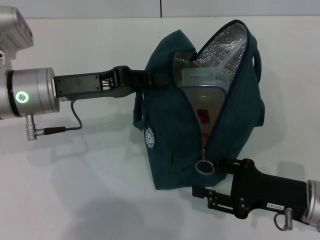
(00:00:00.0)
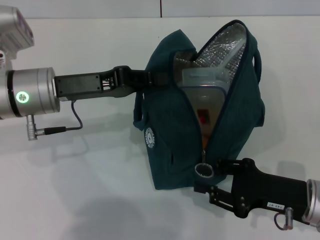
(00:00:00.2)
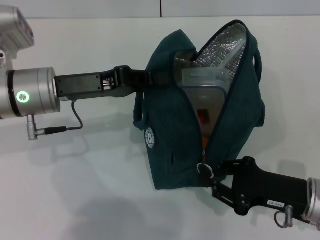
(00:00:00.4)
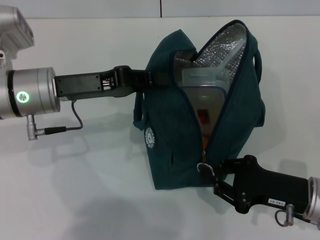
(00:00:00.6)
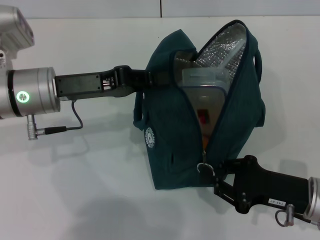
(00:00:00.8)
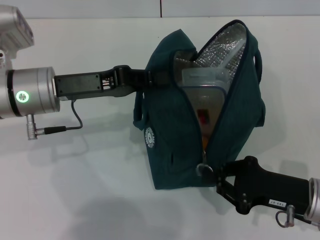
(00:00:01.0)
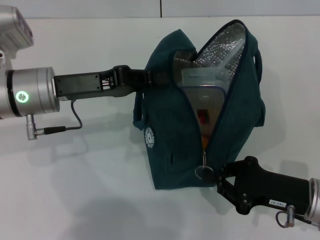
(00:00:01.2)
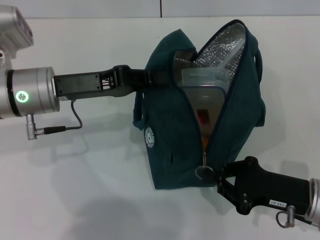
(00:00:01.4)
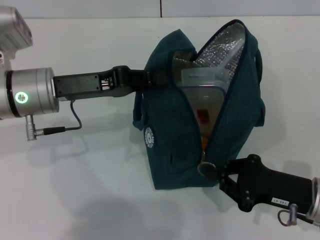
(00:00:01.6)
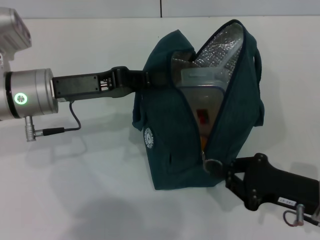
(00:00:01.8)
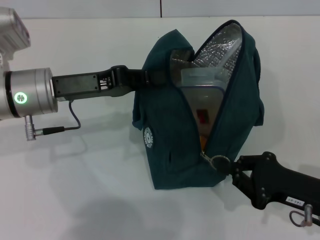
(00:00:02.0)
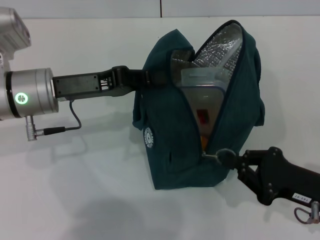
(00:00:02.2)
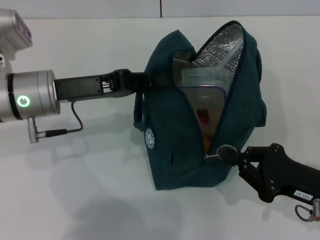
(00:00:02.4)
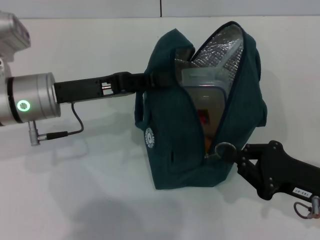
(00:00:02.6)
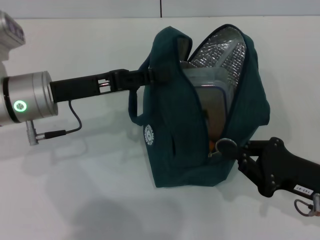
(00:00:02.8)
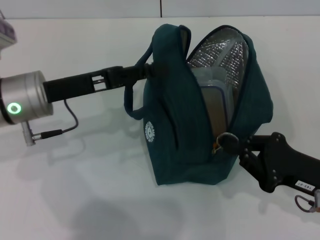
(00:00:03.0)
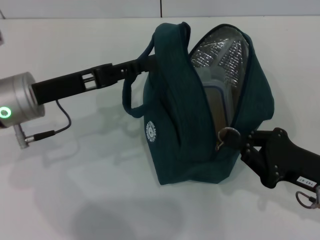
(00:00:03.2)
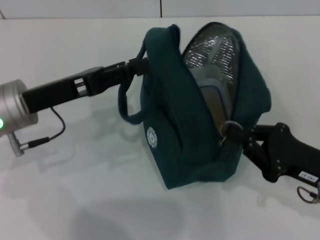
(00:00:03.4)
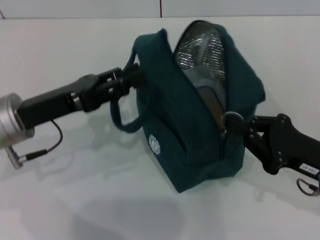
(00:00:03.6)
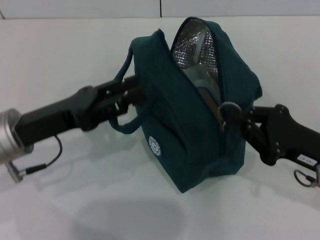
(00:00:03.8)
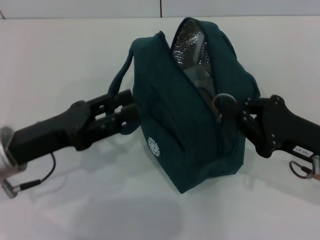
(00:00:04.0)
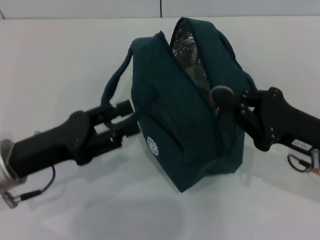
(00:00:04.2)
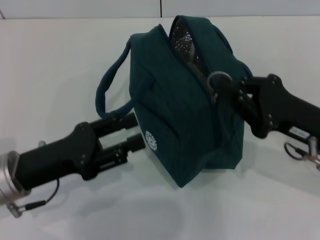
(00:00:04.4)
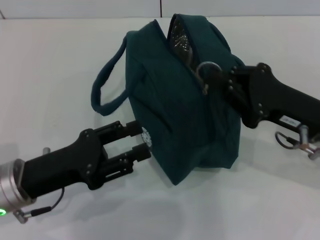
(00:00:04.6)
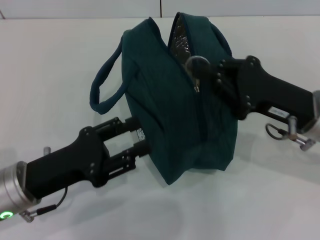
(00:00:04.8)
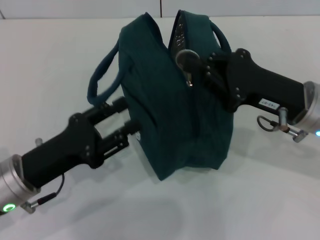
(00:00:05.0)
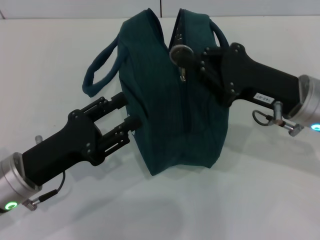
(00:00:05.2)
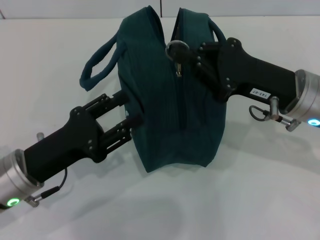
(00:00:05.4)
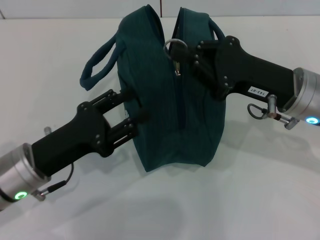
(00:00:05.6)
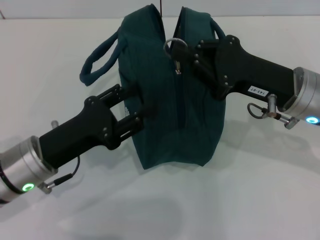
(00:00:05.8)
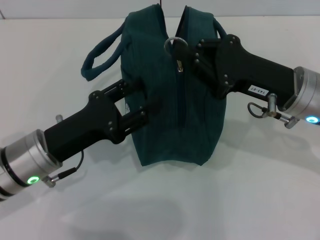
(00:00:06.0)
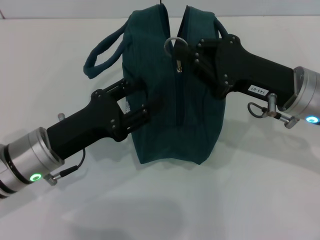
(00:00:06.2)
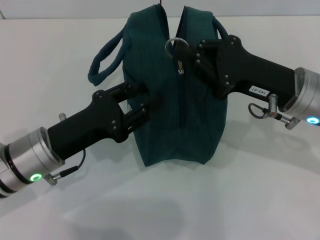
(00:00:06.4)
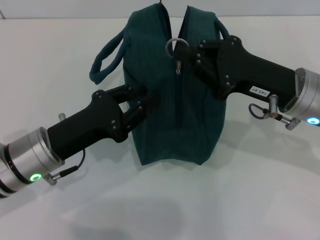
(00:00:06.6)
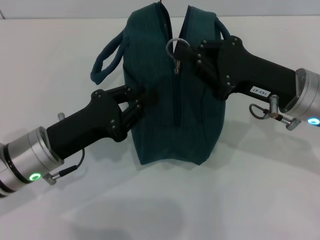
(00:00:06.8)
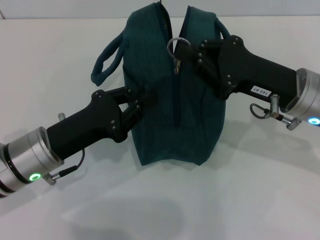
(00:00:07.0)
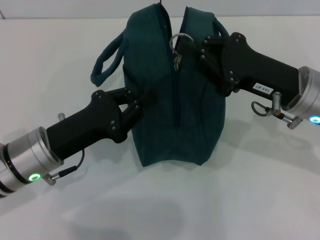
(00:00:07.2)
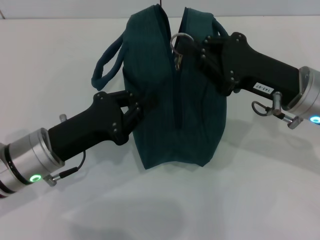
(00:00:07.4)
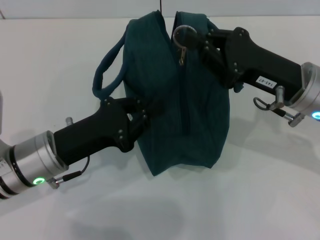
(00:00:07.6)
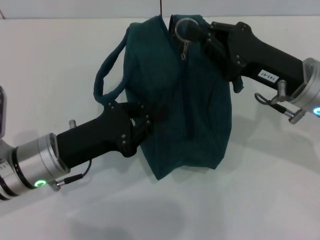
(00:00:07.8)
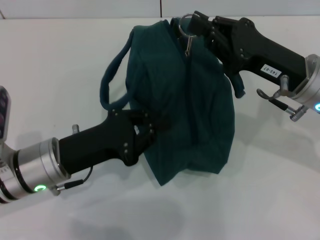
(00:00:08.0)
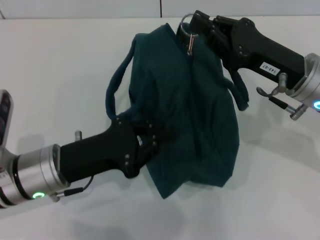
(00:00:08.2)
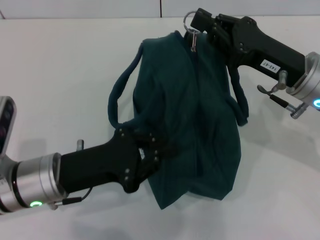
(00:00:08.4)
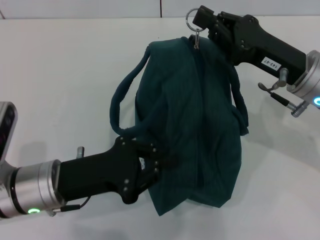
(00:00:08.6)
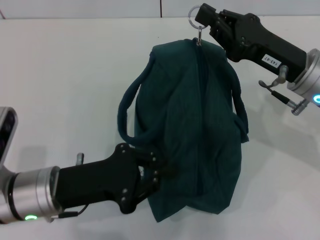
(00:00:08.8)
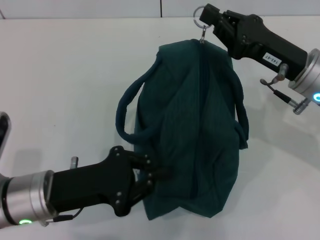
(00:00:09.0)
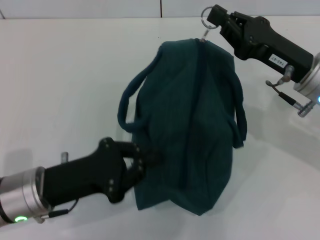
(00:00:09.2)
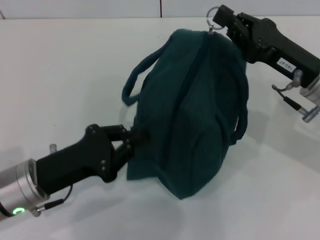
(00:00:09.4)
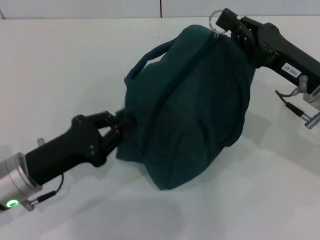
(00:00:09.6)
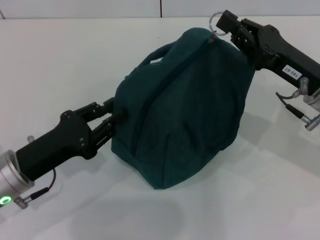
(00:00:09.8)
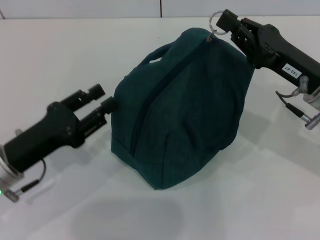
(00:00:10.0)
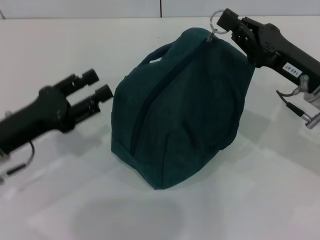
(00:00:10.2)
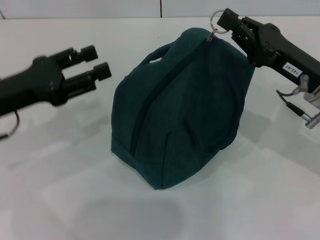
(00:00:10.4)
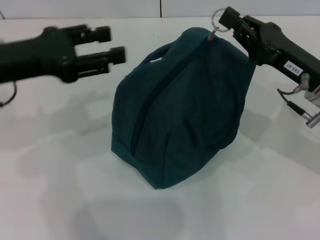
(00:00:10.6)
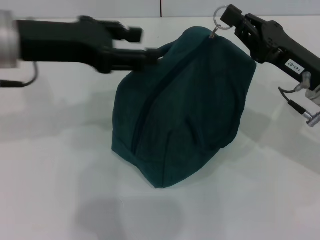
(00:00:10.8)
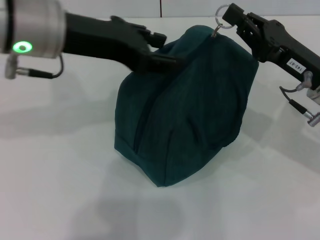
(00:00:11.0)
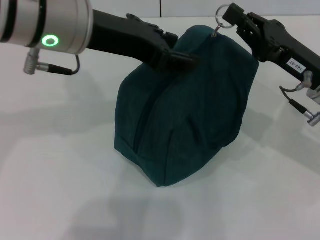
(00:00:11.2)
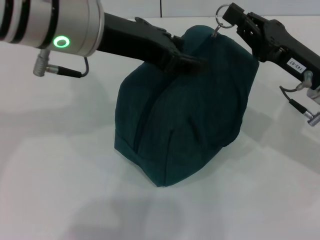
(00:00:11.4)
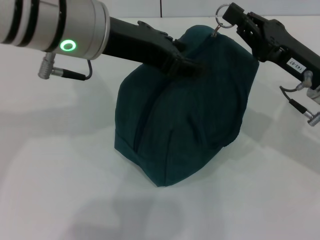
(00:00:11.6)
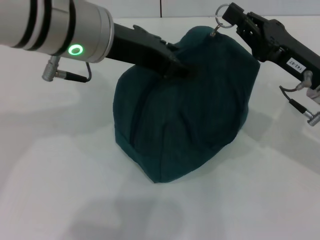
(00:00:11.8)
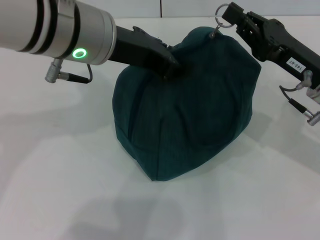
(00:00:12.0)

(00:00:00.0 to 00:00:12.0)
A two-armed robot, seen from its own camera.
Step, 00:00:00.0 - 00:00:03.4: Hold the lunch bag with your left hand.
00:00:00.0 - 00:00:01.6: The right gripper closes.
00:00:01.6 - 00:00:03.0: The left gripper opens up.
00:00:03.0 - 00:00:04.4: The left gripper is displaced backward and downward by approximately 10 cm. Meanwhile the right gripper ends up approximately 5 cm from where it was.
00:00:04.4 - 00:00:06.0: The right gripper ends up approximately 5 cm from where it was.
00:00:06.0 - 00:00:07.6: The left gripper closes.
00:00:09.0 - 00:00:10.4: The left gripper moves upward, to the left and forward, roughly 10 cm, and opens its fingers.
00:00:10.4 - 00:00:12.0: The left gripper is displaced to the right and upward by roughly 20 cm.

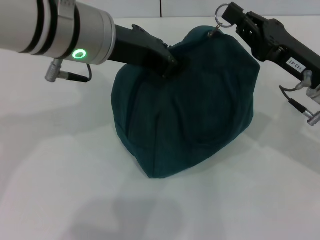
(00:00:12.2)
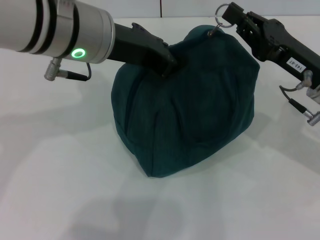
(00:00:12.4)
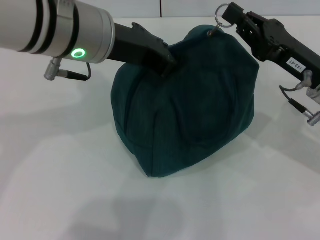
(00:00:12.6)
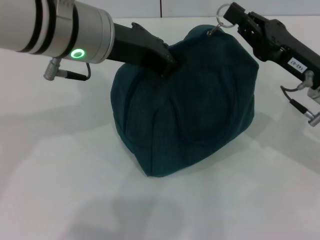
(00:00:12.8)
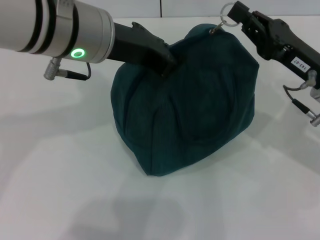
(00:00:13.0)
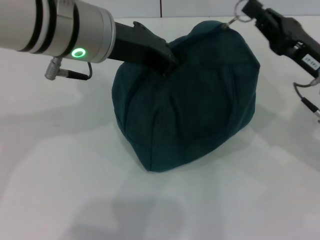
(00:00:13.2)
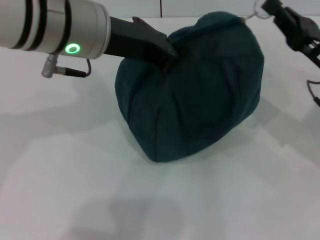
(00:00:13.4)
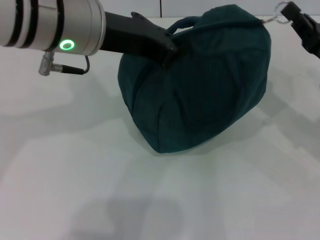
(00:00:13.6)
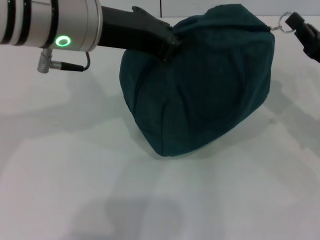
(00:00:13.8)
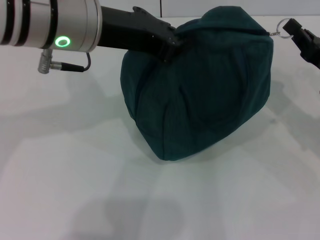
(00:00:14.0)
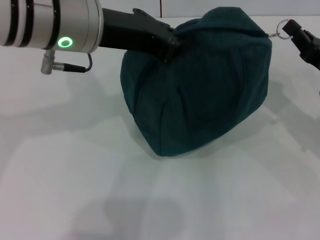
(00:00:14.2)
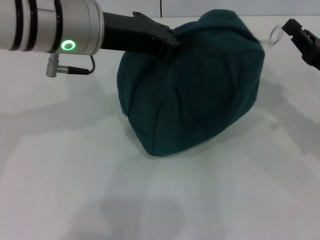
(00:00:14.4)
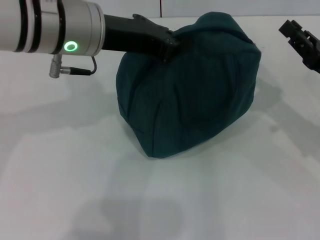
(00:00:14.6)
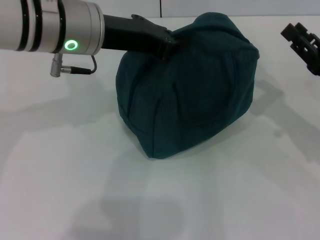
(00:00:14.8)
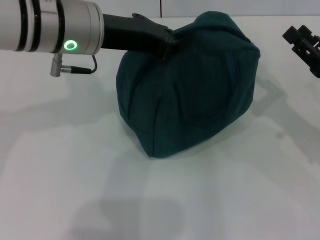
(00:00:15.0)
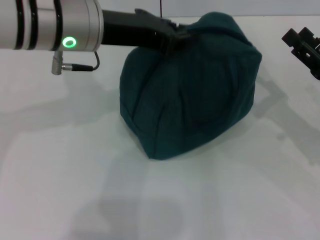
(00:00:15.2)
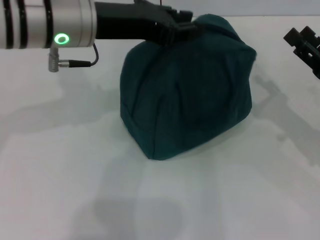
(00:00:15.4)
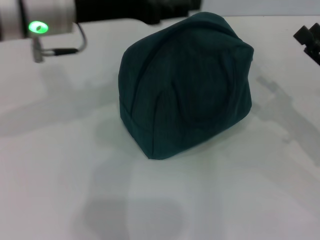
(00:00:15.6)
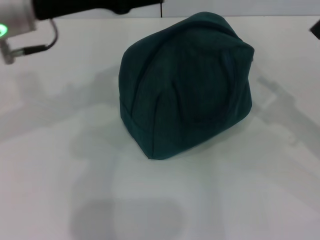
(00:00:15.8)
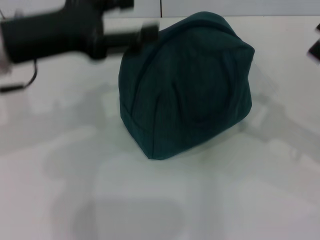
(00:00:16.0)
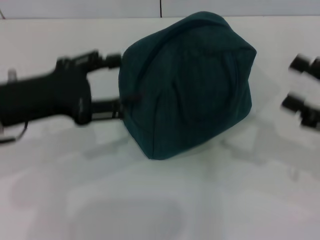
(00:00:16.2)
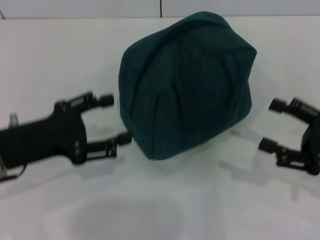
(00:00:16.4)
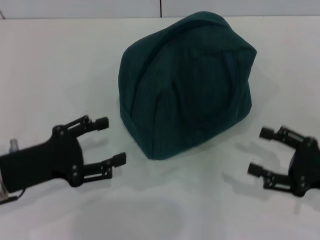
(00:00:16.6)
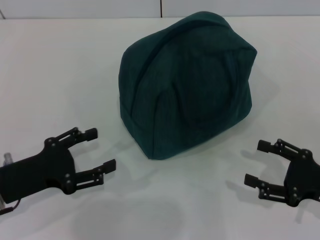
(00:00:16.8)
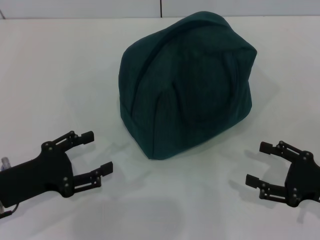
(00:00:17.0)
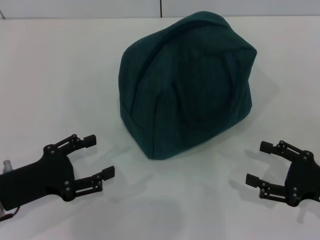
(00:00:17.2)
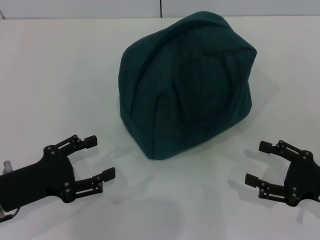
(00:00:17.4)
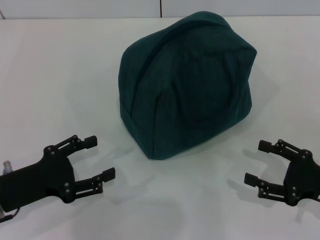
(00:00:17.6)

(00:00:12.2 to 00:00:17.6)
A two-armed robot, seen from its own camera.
Step, 00:00:12.2 - 00:00:14.6: Zip up the lunch bag with your right hand.
Step, 00:00:14.8 - 00:00:15.8: Hold the lunch bag with your left hand.
00:00:12.2 - 00:00:13.6: The left gripper closes up. The right gripper moves to the right, about 5 cm.
00:00:13.6 - 00:00:15.0: The right gripper opens.
00:00:15.0 - 00:00:16.2: The left gripper moves to the left, backward and downward, some 15 cm, and opens up, while the right gripper shifts by about 5 cm, and opens.
00:00:16.2 - 00:00:17.6: The left gripper travels downward and backward by roughly 15 cm. Meanwhile the right gripper travels downward by about 10 cm.
